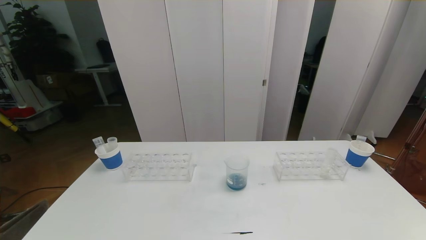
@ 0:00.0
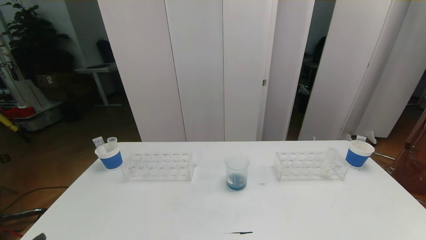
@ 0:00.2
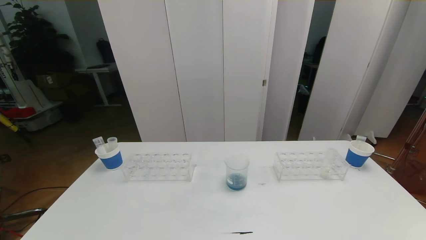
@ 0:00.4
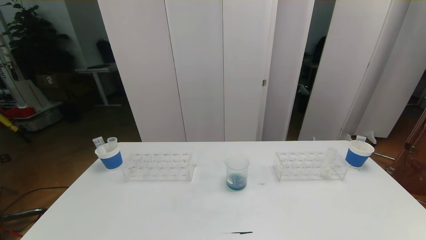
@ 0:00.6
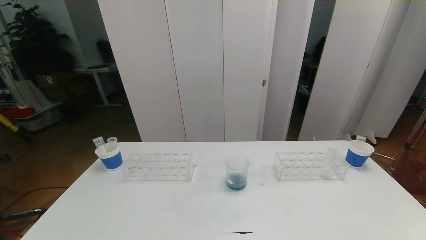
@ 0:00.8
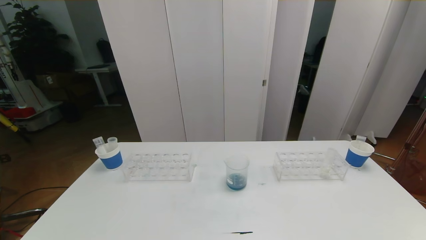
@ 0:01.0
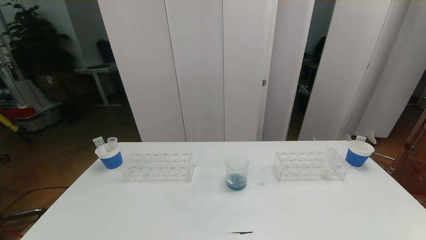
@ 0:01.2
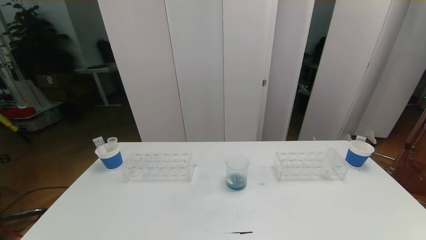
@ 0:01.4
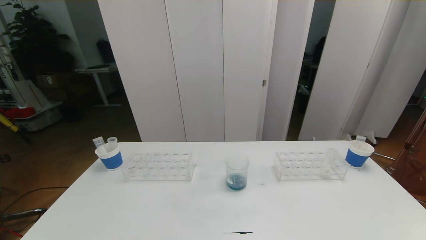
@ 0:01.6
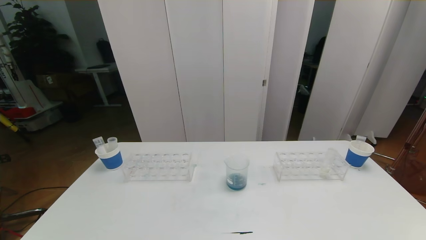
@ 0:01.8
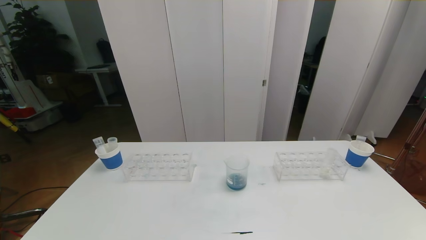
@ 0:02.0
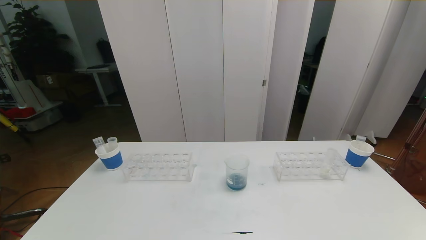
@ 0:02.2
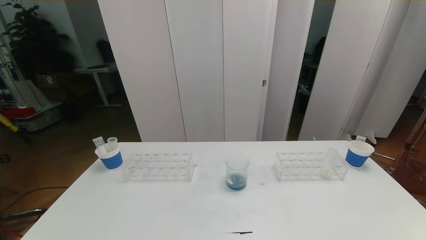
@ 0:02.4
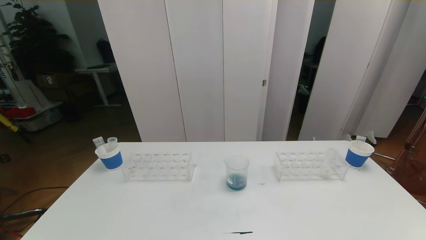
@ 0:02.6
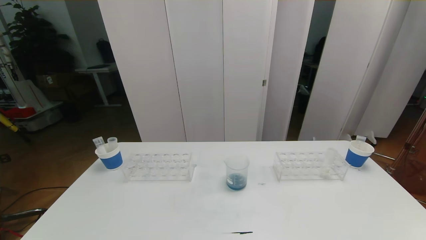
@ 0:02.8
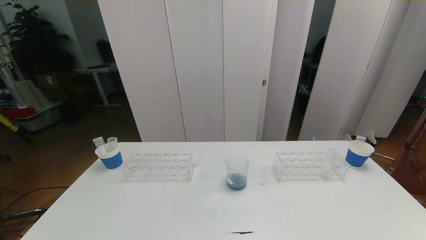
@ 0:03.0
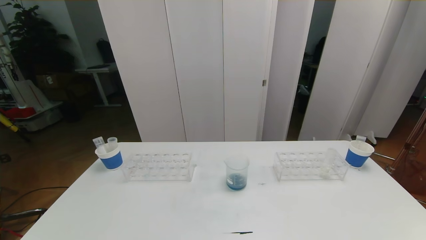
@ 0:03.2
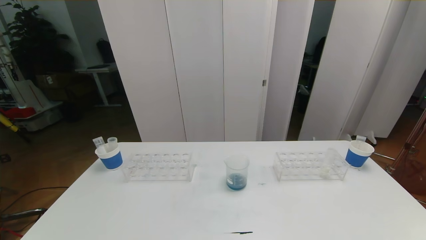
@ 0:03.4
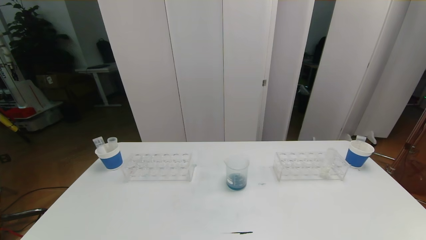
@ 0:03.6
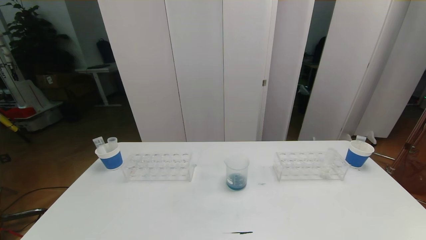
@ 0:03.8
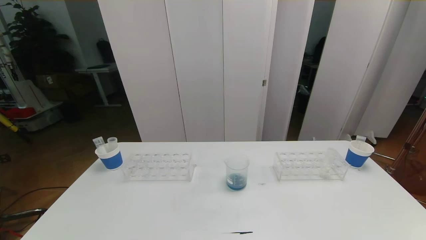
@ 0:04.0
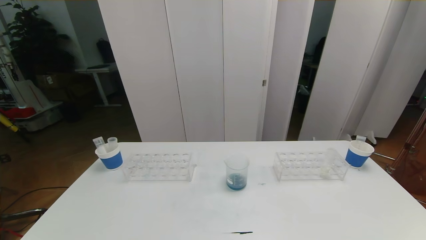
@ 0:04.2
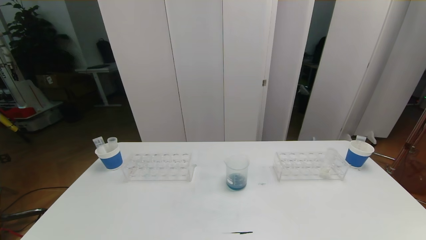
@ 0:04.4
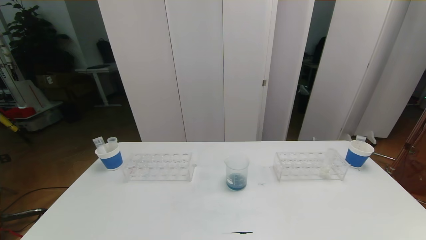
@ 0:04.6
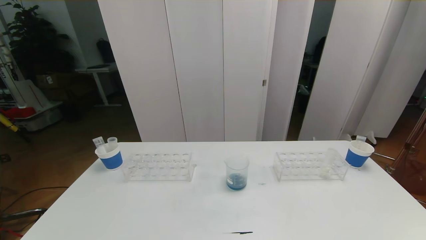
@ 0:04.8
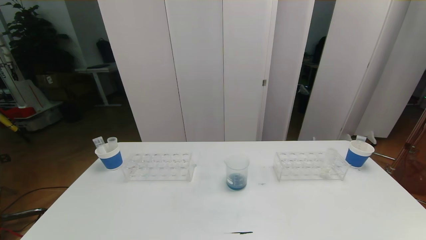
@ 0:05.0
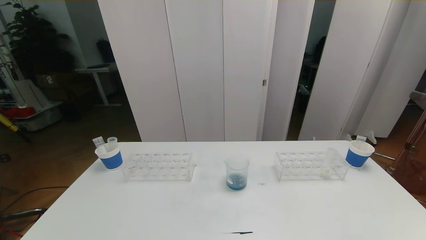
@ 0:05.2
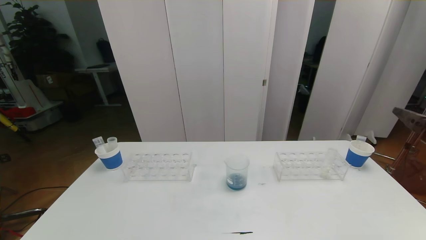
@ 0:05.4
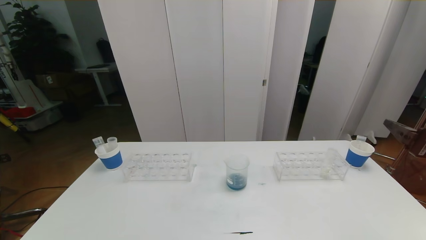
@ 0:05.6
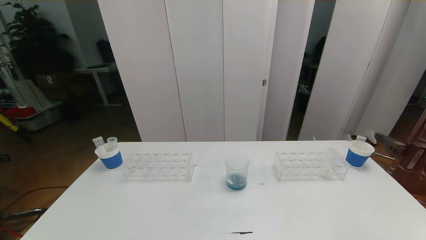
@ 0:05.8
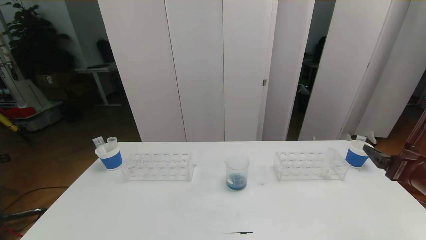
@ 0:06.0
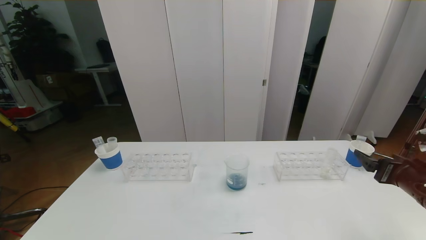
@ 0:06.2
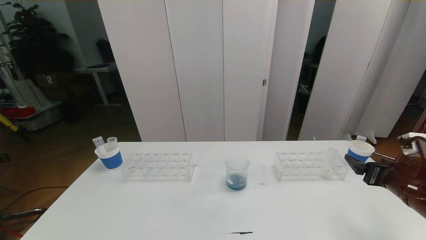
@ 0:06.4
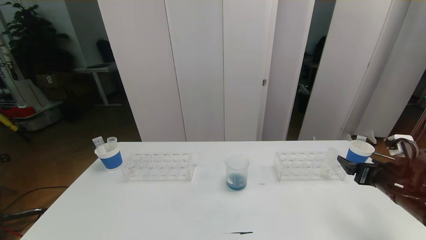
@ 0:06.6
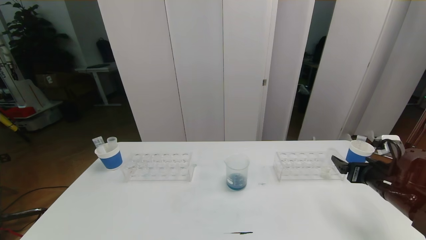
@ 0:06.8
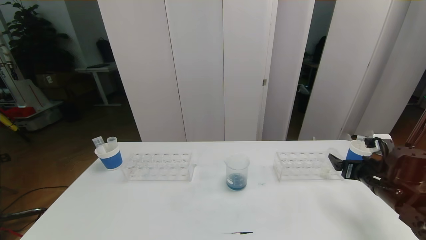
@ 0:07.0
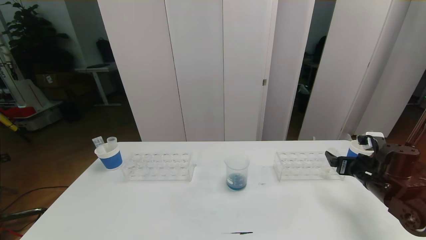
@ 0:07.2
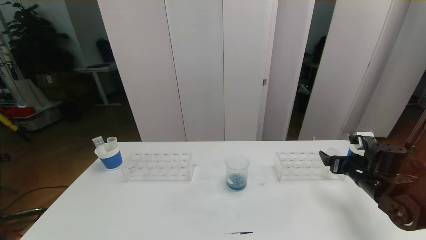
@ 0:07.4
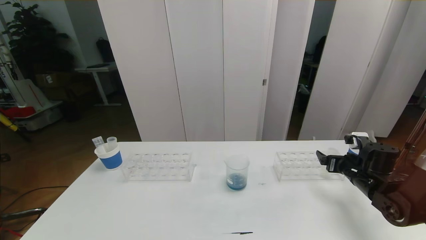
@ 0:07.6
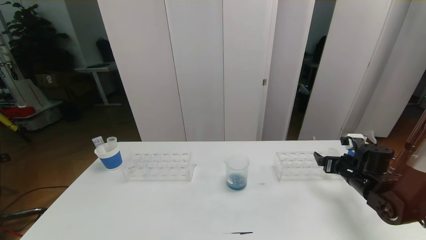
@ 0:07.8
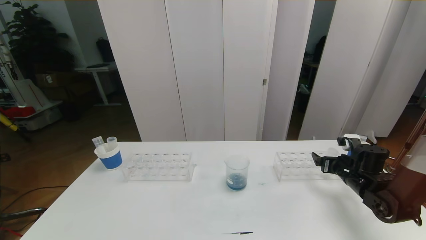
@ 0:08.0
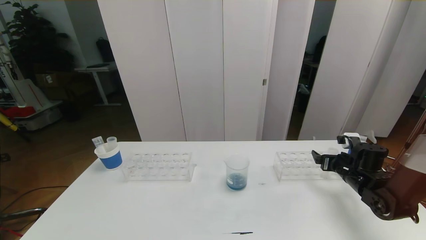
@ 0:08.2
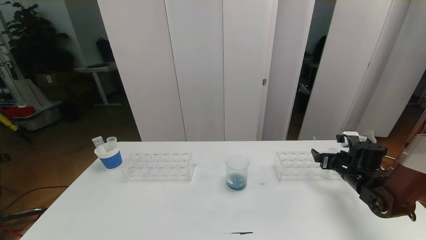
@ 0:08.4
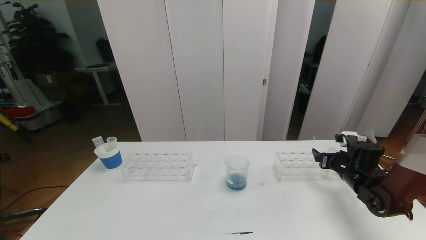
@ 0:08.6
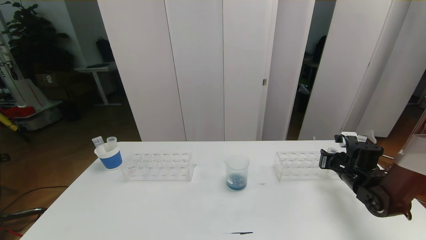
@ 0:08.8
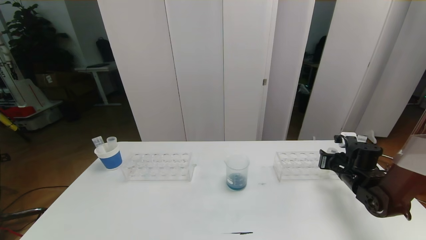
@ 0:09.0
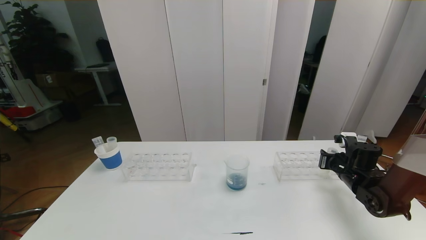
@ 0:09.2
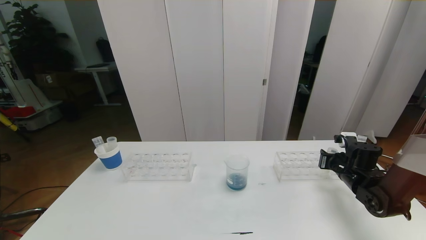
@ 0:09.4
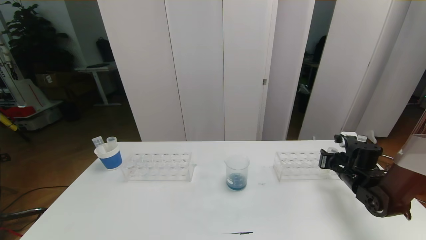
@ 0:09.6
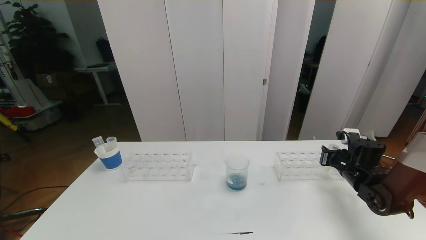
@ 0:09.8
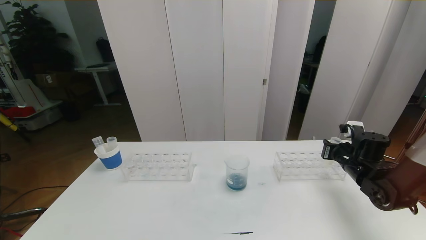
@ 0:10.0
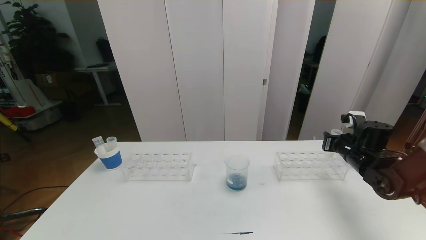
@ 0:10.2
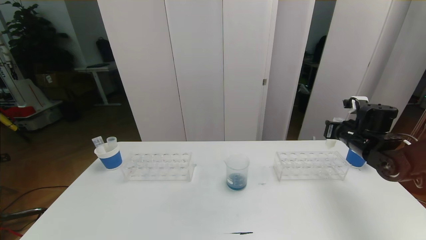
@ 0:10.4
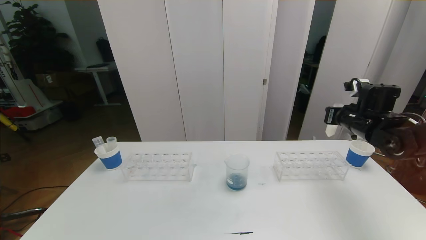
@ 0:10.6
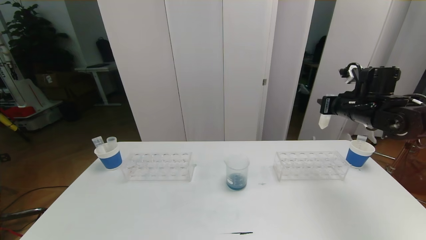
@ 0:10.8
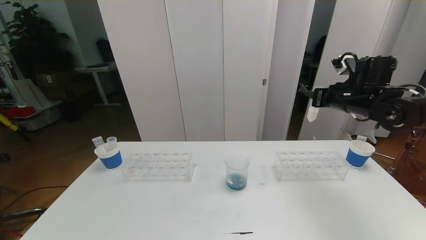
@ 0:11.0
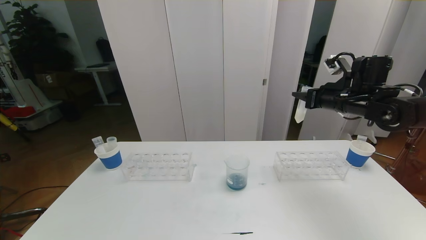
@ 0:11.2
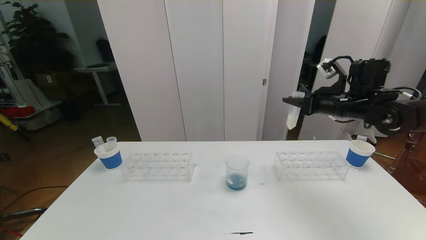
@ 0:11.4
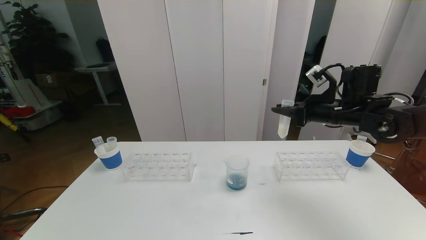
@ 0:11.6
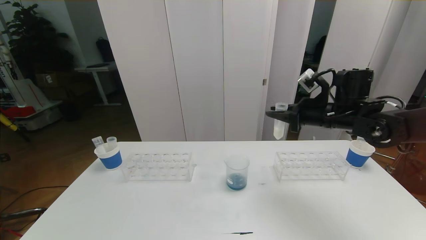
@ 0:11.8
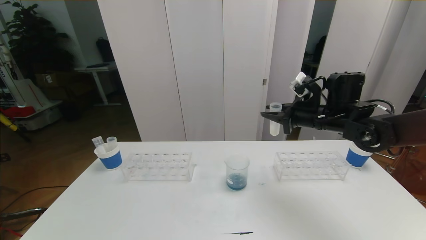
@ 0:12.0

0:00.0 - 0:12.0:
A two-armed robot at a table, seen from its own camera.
Task of the whole recording: pick up the test tube with red pigment the test tube with blue pigment and the test tube with white pigment by grippers and pour them into the beaker.
Step, 0:00.0 - 0:06.4: Pour the orange reagent into the graduated cylinder and place the test tube into the paper cup.
0:01.6 - 0:03.0: Both grippers stay about where they are.
0:06.0 - 0:07.6: The right gripper travels forward and downward by roughly 15 cm.
0:07.6 - 0:09.0: The right gripper closes its fingers.
0:09.0 - 0:10.4: The right gripper travels upward by about 10 cm.
0:10.4 - 0:12.0: The right gripper heads to the left and upward, covering some 15 cm.

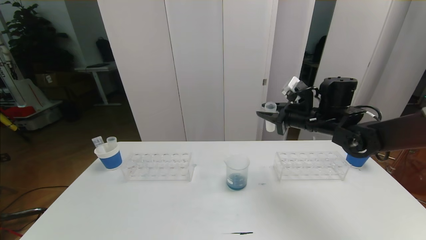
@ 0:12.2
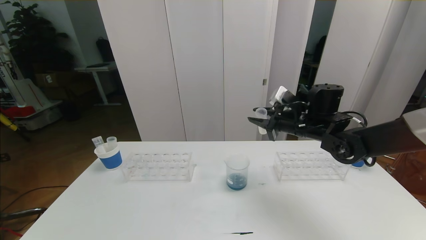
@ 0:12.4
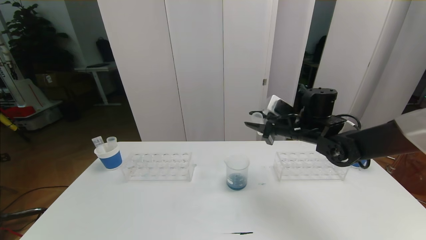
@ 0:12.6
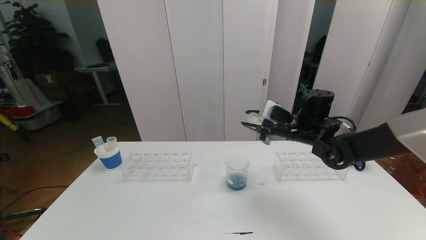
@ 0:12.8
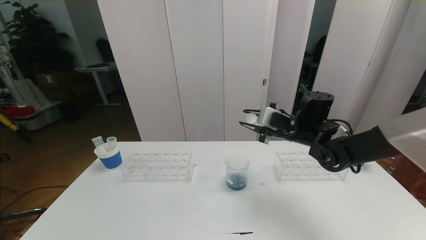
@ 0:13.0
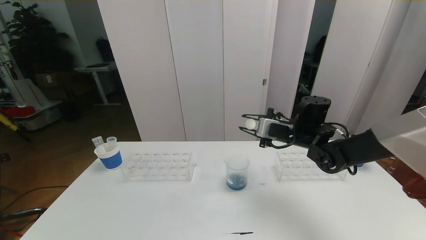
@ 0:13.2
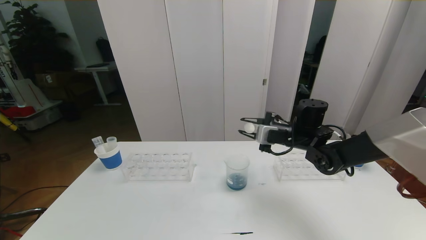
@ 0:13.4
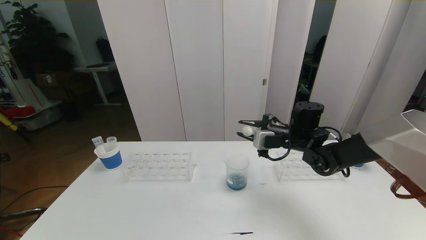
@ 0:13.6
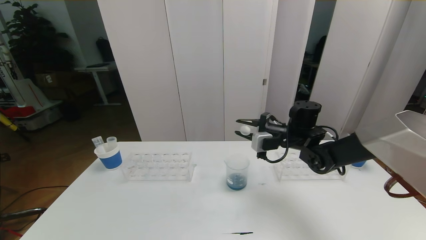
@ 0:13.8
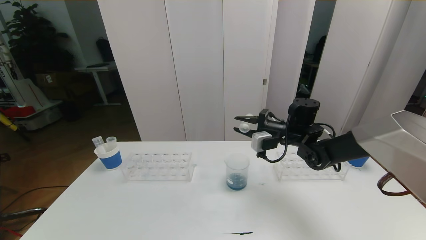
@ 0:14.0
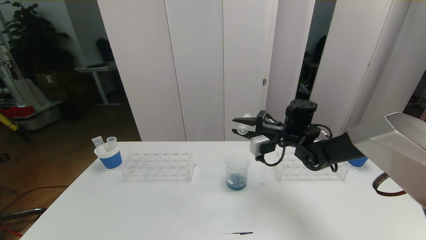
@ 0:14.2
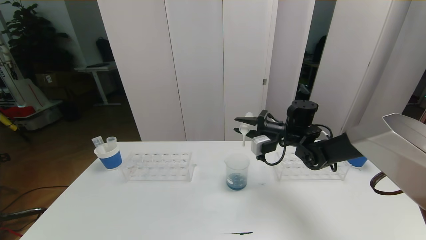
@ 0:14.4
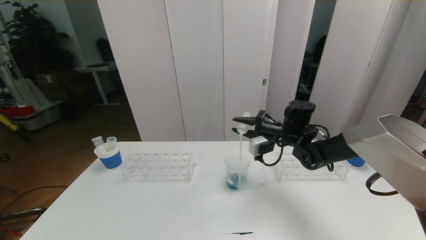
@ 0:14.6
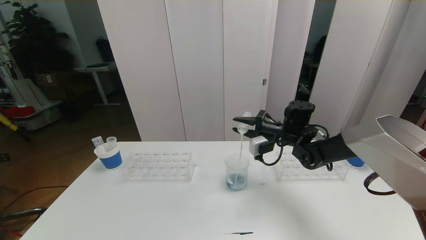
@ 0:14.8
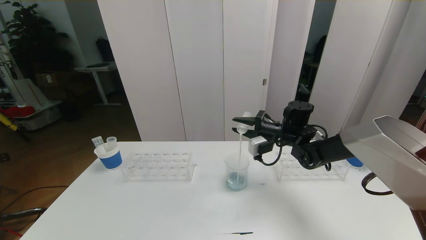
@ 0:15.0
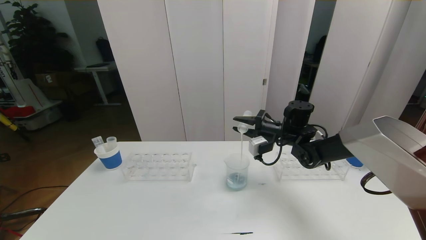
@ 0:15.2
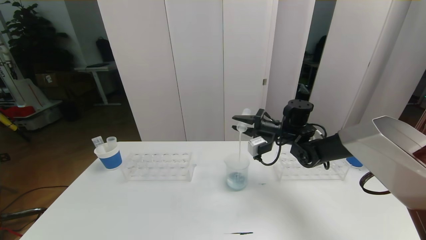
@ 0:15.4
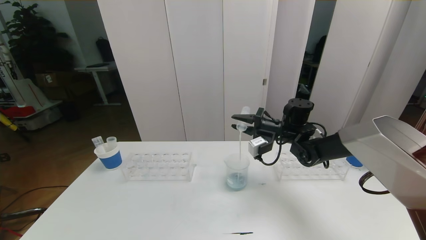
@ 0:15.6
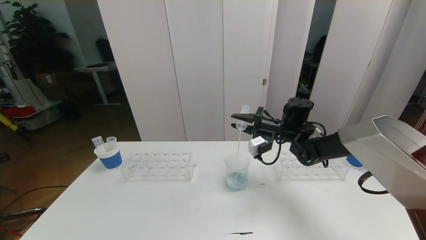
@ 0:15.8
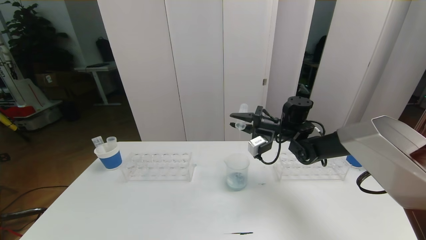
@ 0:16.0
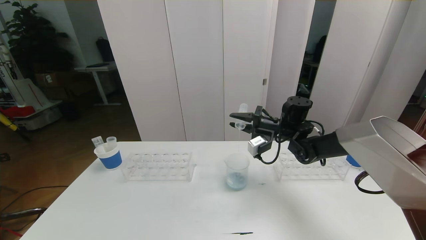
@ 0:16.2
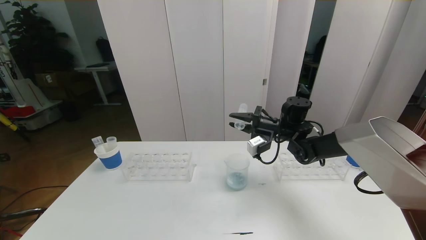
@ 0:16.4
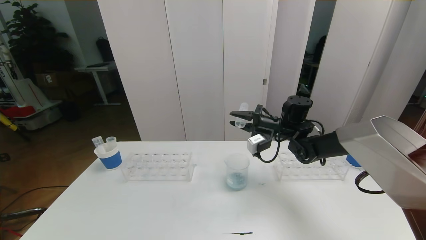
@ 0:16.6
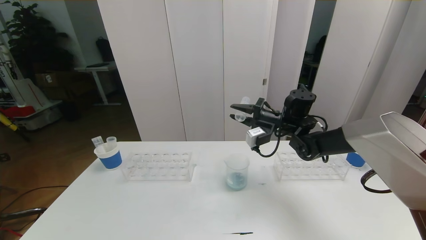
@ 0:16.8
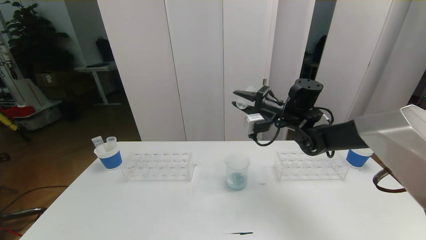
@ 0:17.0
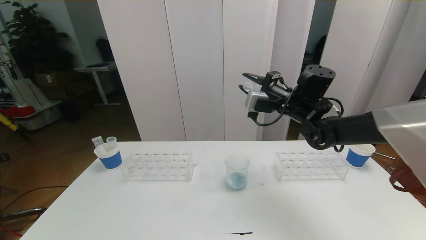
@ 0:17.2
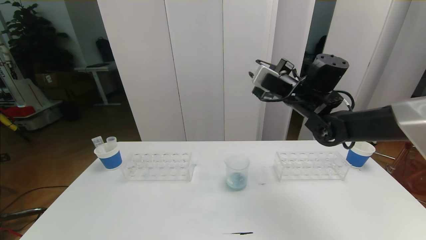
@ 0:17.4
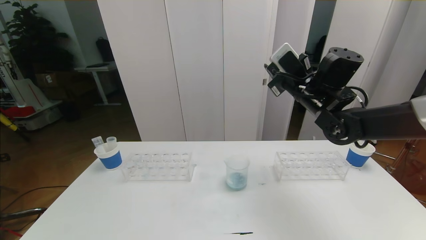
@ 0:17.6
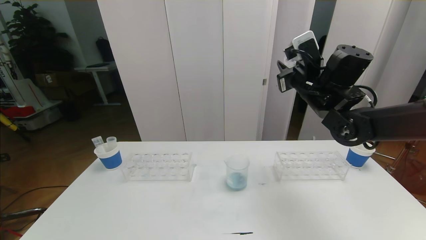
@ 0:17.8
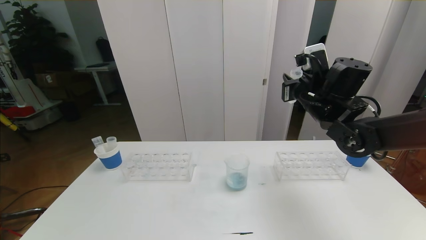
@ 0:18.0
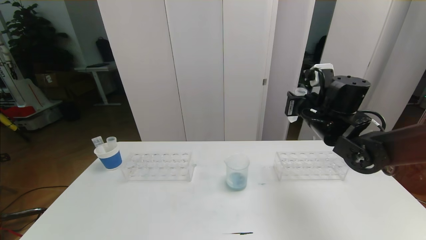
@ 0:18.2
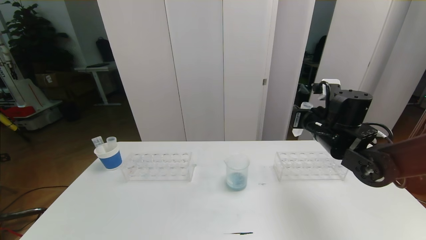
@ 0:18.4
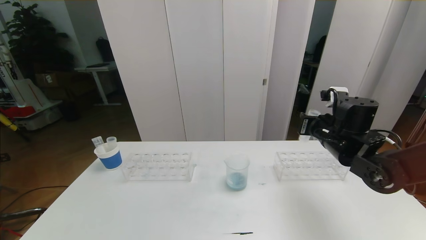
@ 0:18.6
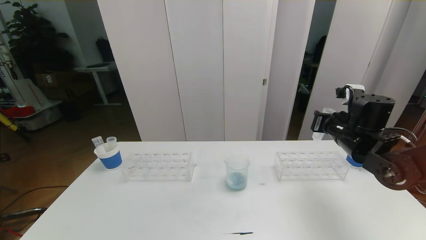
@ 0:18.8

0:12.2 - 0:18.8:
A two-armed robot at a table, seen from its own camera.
Task of the whole recording: pick up the test tube with red pigment the test tube with blue pigment and the test tube with white pigment by grippers and pour them into the beaker.
0:12.2 - 0:13.8: The right gripper shifts about 5 cm downward.
0:15.4 - 0:17.2: The right gripper heads upward, covering about 10 cm.
0:17.2 - 0:18.8: The right gripper shifts approximately 15 cm to the right and backward.
